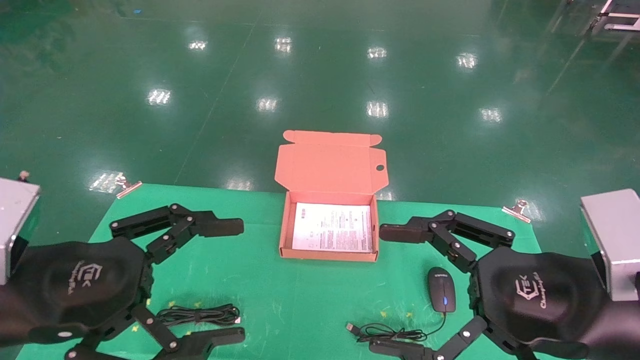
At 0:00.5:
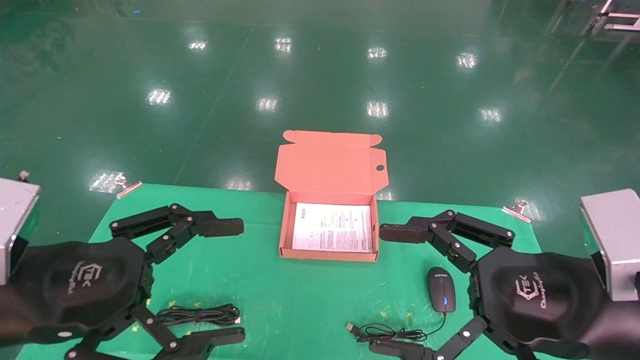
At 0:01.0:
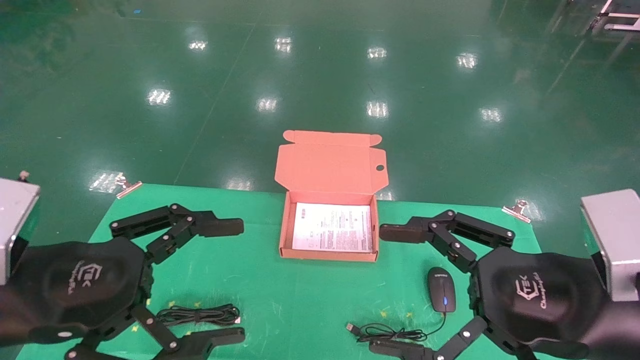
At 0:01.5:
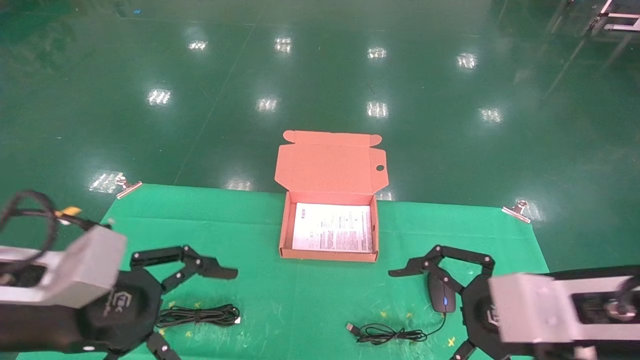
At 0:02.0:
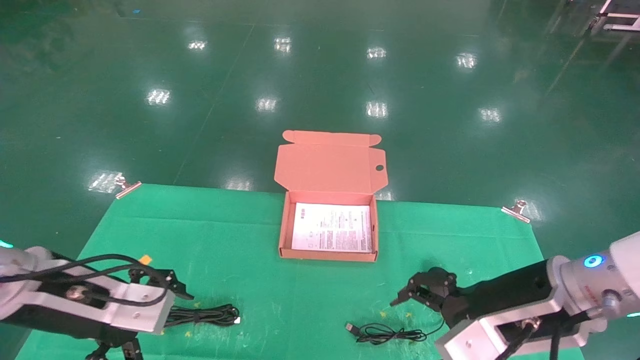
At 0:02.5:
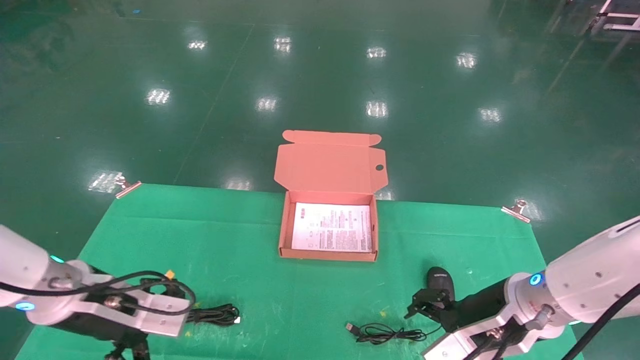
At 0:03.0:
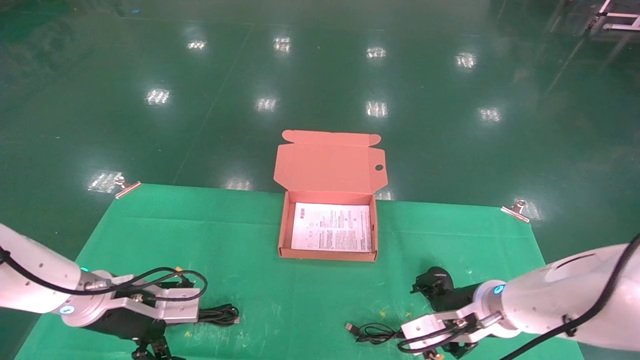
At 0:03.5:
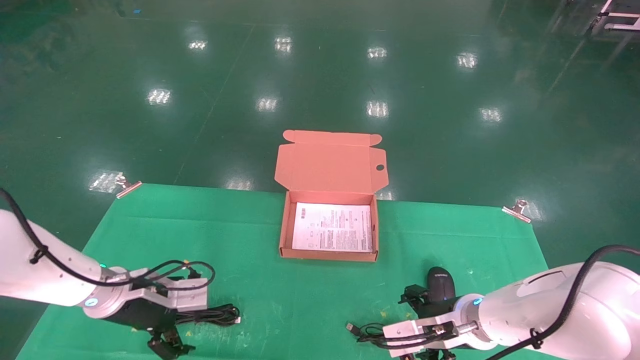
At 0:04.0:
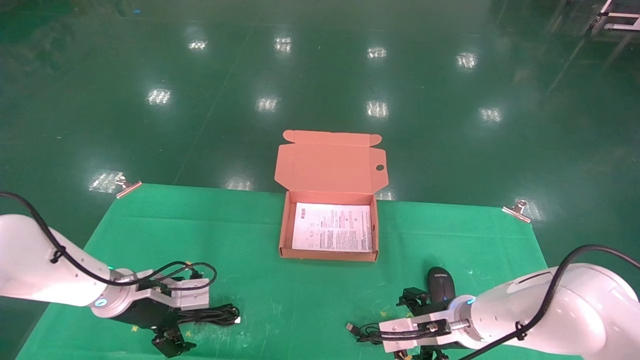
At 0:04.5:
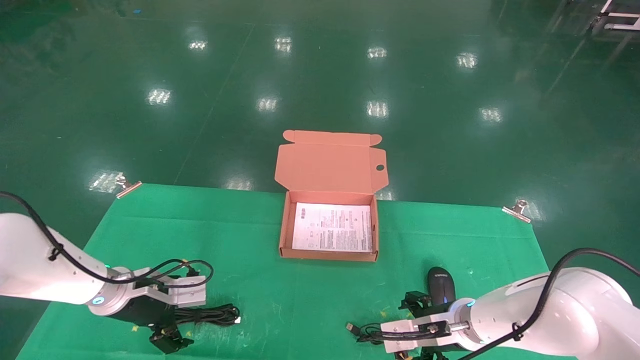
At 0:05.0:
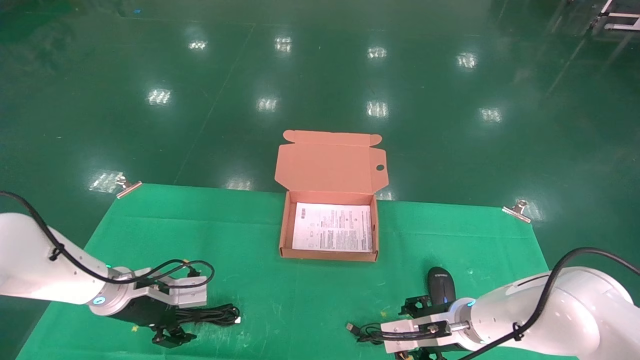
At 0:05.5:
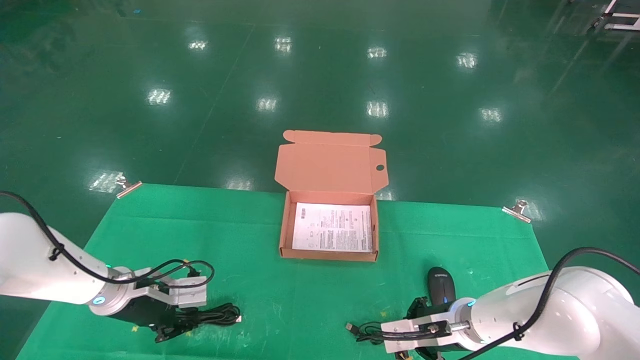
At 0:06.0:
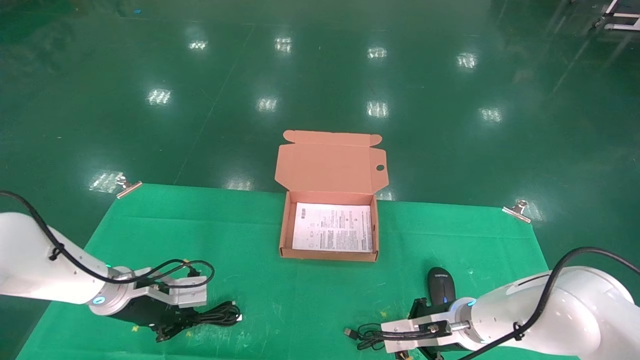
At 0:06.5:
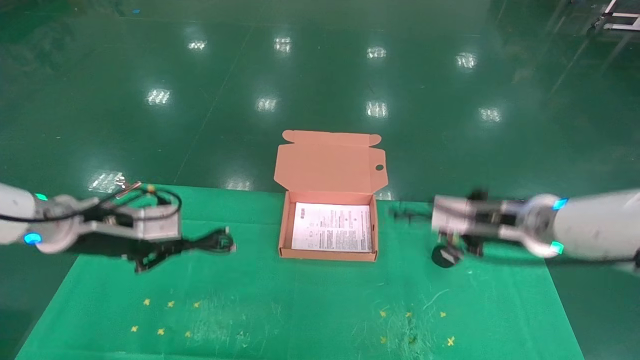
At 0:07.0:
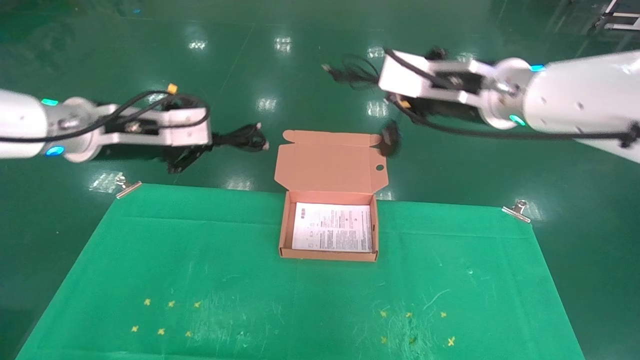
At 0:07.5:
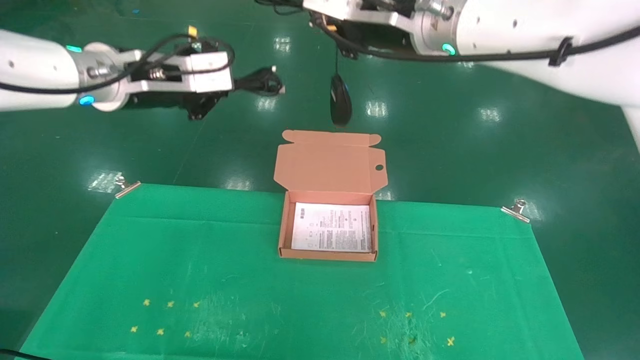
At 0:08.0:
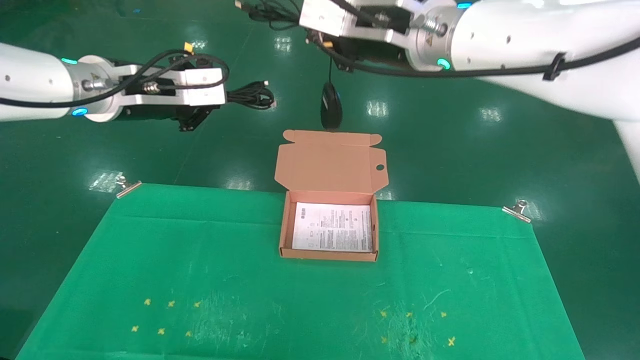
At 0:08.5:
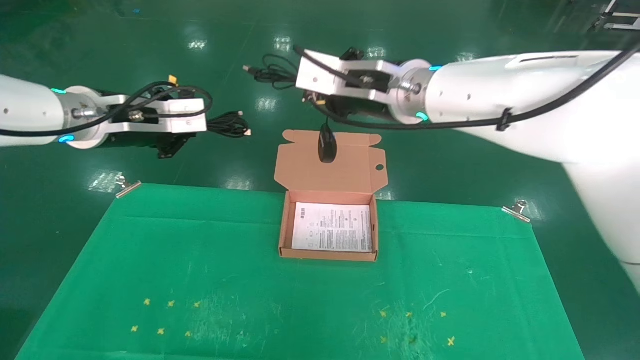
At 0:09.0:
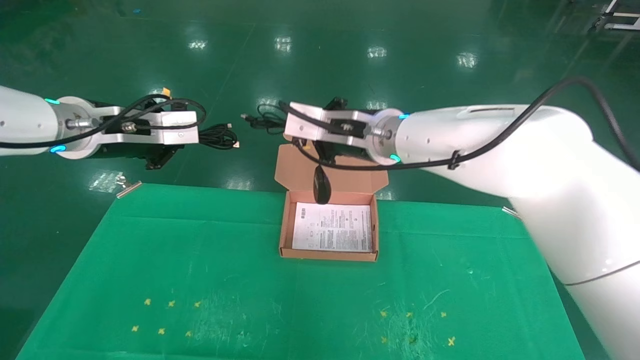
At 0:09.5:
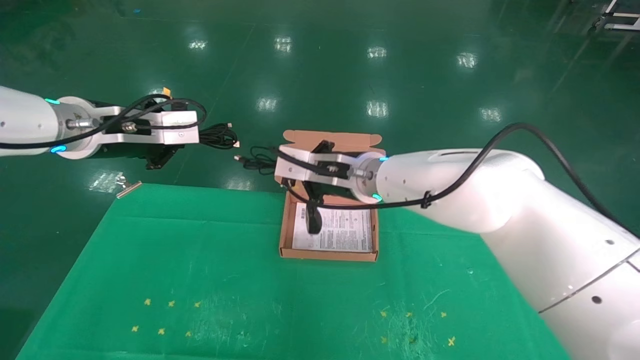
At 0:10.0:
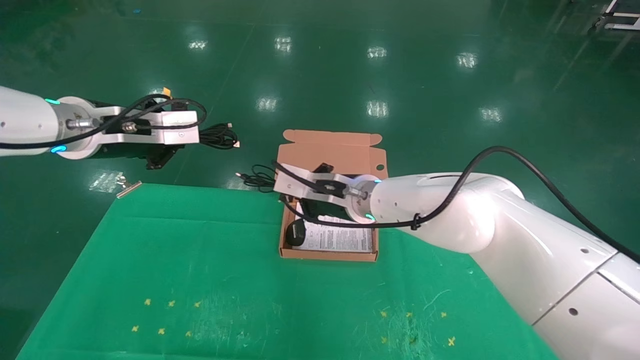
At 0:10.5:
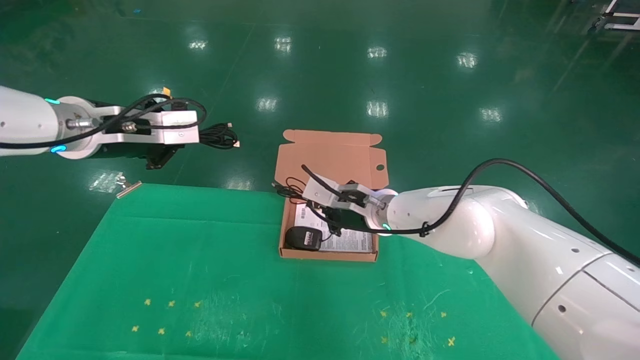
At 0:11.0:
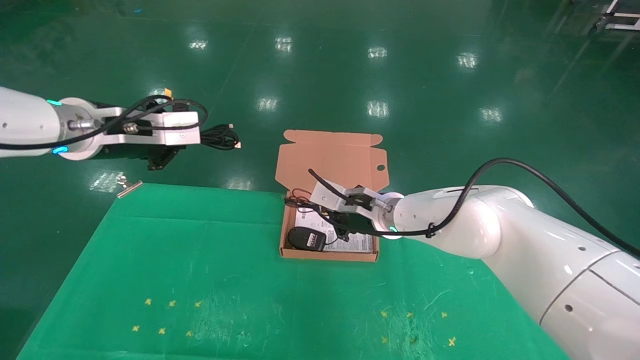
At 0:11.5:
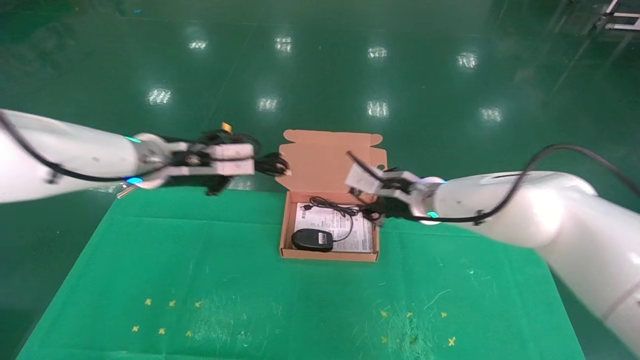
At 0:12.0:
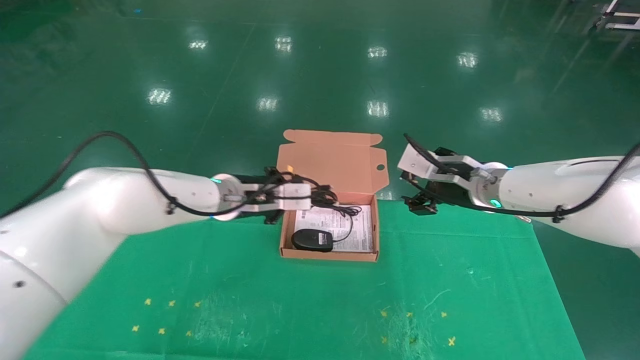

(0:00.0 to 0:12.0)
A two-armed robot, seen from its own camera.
Task of the whole recording: grasp data cable left put into box grasp mouse right put into box.
Step, 0:01.5 - 0:05.5: Grab and pick up both the mouse and power cord from the accessory packaging area at the same time.
0:00.0 - 0:02.0: The grippers both shift forward by some 10 cm.
0:02.0 - 0:04.0: The right gripper moves downward and forward, roughly 15 cm. The left gripper shifts some 20 cm forward and downward.
0:04.0 - 0:06.0: The right gripper closes its fingers; the left gripper closes up.
0:06.0 - 0:08.0: The two grippers go roughly 30 cm upward.
0:08.0 - 0:10.0: The right gripper moves downward, some 20 cm.
0:10.0 - 0:12.0: The right gripper goes some 20 cm to the right, and opens up. The left gripper goes about 20 cm to the right, downward and forward.

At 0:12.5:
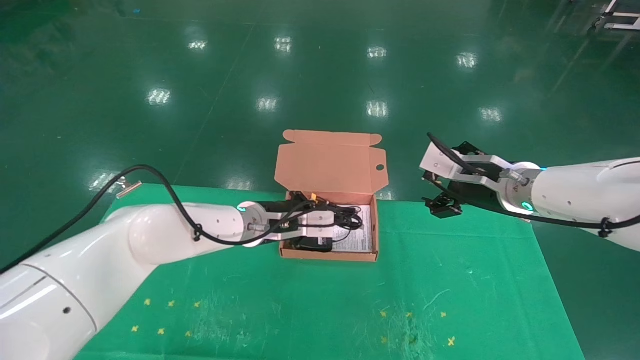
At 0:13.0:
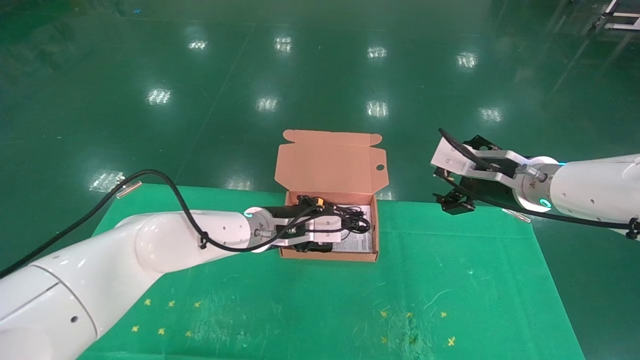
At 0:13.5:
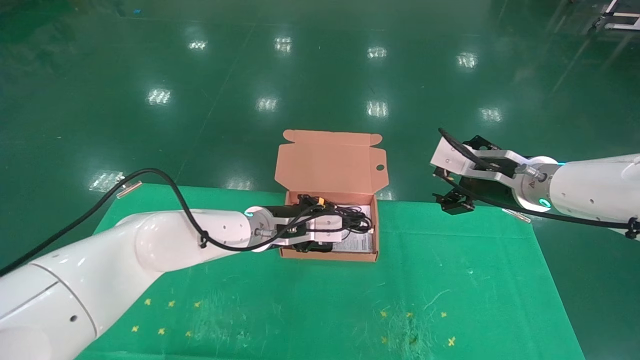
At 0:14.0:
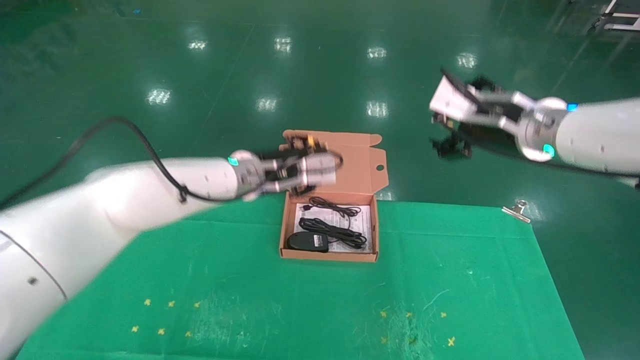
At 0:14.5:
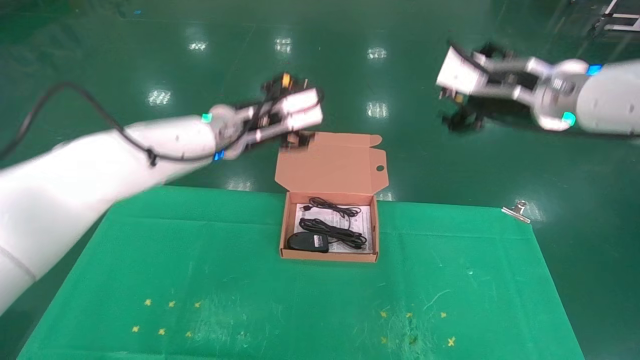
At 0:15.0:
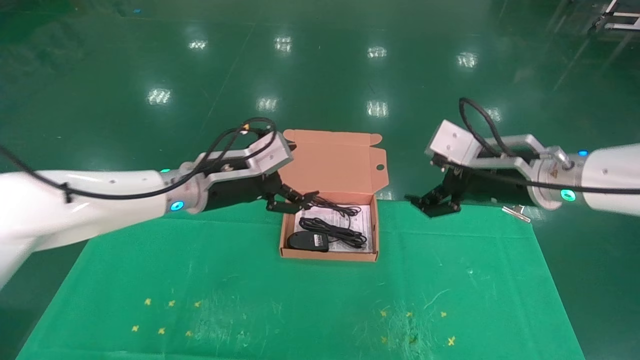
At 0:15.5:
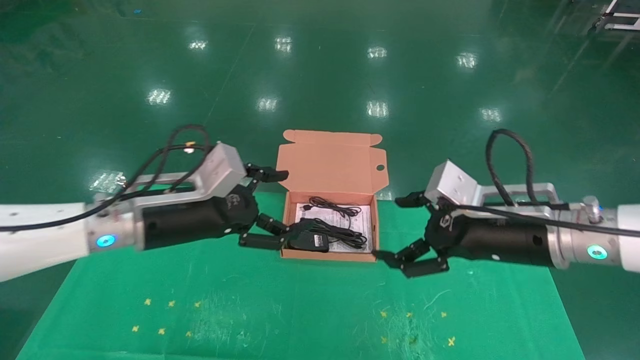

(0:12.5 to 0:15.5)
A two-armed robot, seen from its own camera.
Task of the whole recording: grasp data cable left put into box grasp mouse right put into box.
0:12.5 - 0:14.0: Both grippers travel together upward, some 5 cm.
0:14.0 - 0:15.5: The left gripper travels backward and to the left by roughly 15 cm, and opens. Meanwhile the right gripper heads downward and backward, covering about 10 cm.
